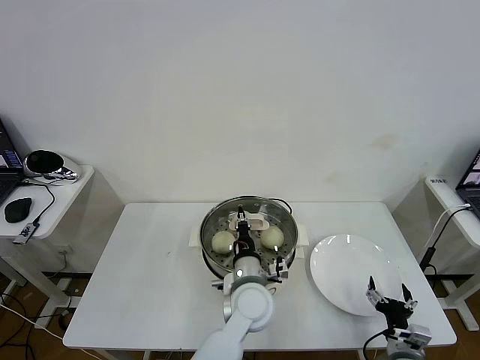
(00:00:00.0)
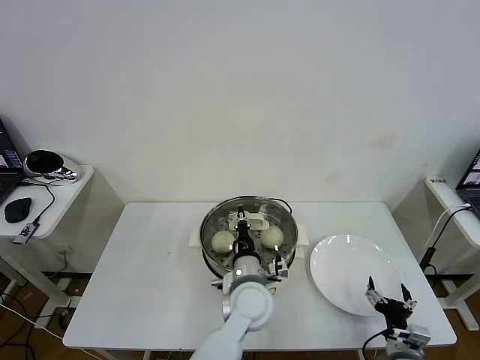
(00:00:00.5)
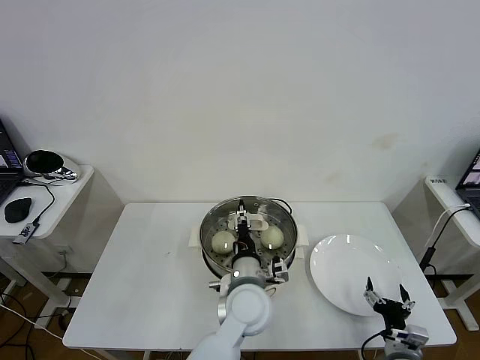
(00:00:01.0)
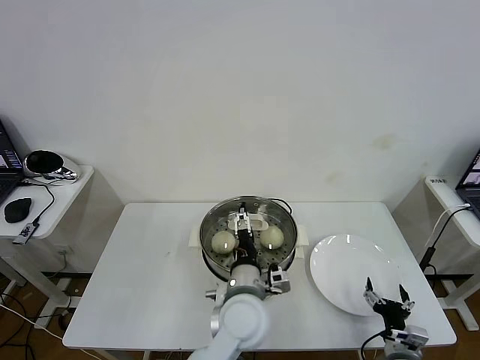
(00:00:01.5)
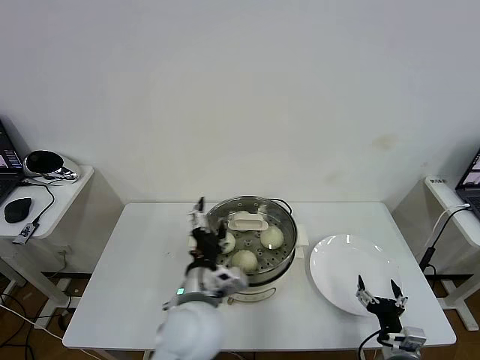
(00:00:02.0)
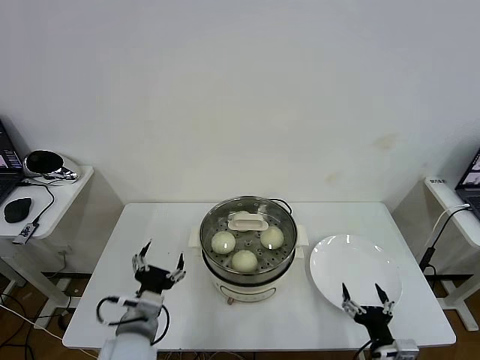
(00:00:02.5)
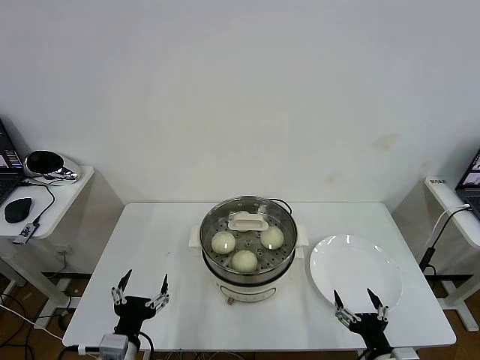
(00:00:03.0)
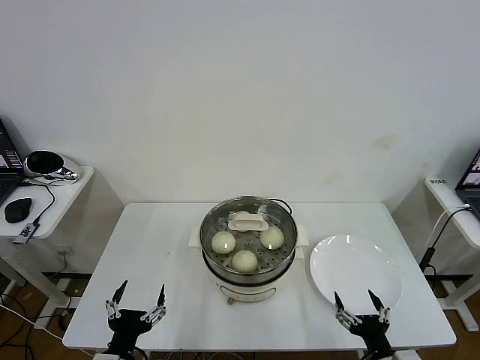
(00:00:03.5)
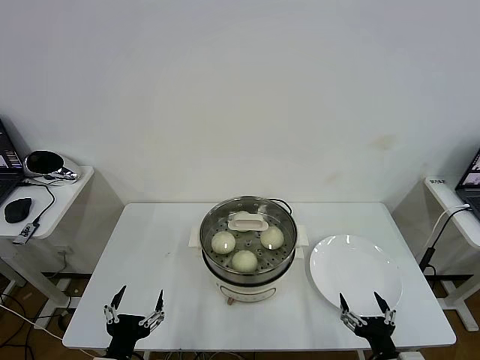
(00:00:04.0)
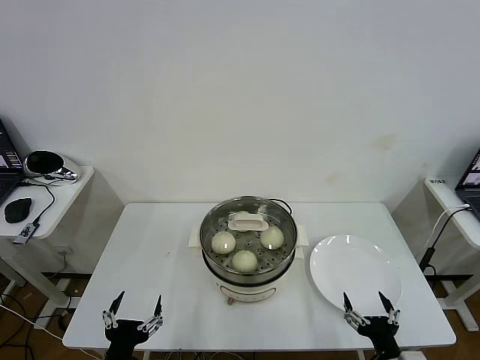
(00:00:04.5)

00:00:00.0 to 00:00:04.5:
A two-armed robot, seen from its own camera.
Task of the whole recording: take steamed baozi put them in steamer then cover it.
00:00:00.0 to 00:00:02.0: The left gripper goes roughly 15 cm upward, to the left and backward, and opens its fingers.
00:00:02.0 to 00:00:04.5: The right gripper goes approximately 10 cm backward and upward, while the left gripper shifts some 25 cm to the left, backward and downward.
